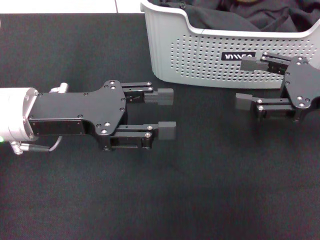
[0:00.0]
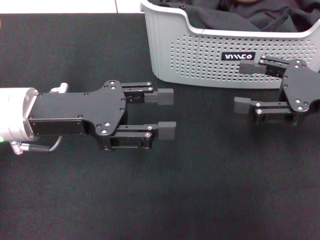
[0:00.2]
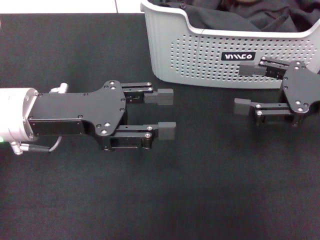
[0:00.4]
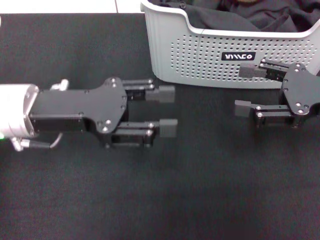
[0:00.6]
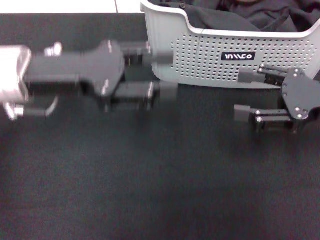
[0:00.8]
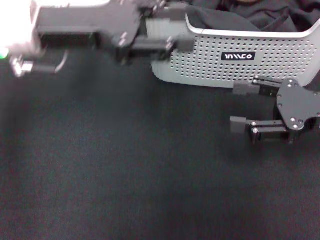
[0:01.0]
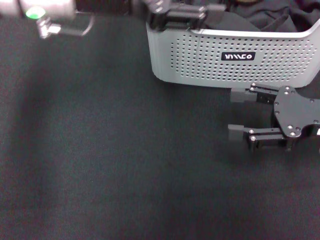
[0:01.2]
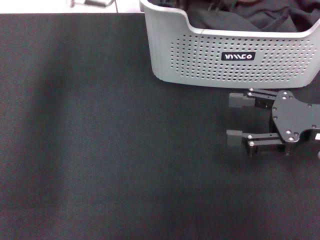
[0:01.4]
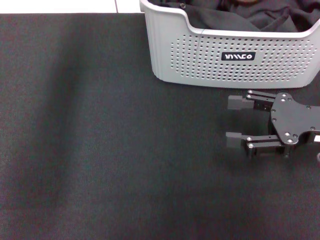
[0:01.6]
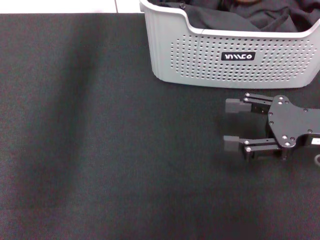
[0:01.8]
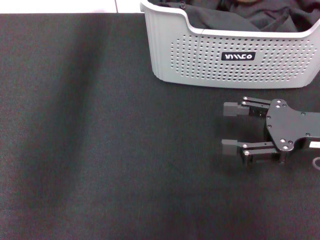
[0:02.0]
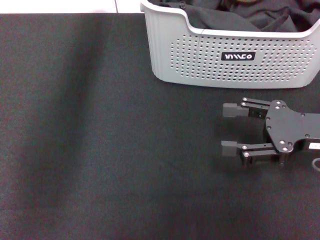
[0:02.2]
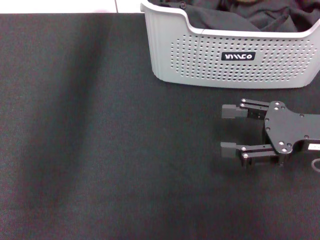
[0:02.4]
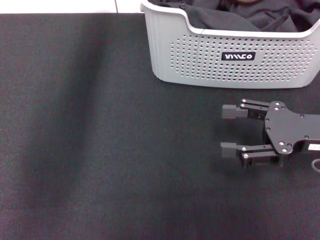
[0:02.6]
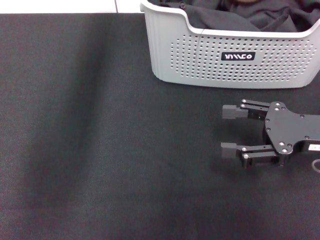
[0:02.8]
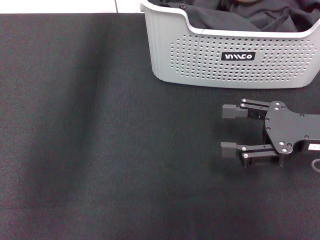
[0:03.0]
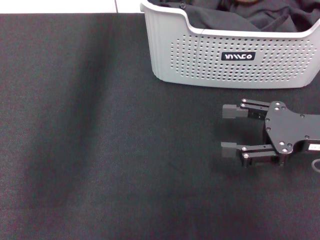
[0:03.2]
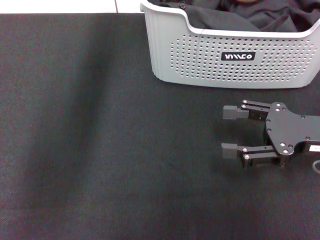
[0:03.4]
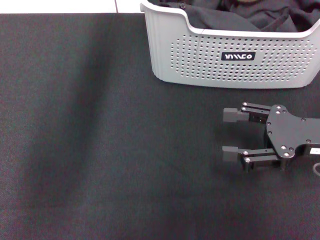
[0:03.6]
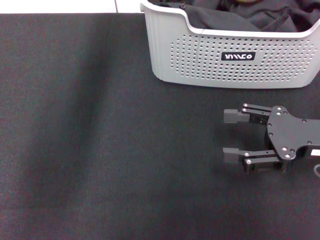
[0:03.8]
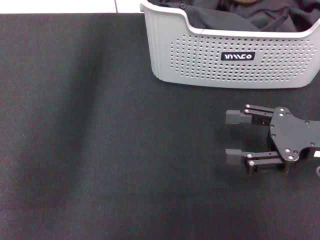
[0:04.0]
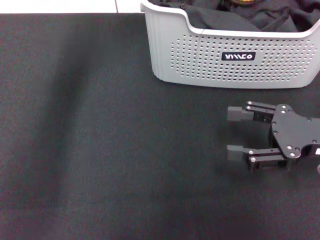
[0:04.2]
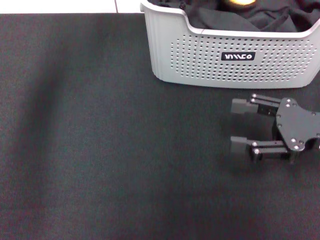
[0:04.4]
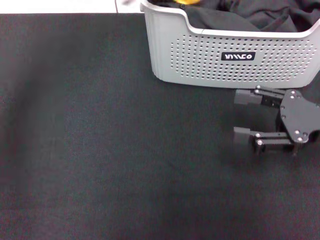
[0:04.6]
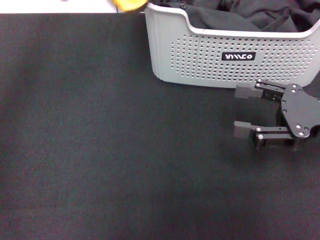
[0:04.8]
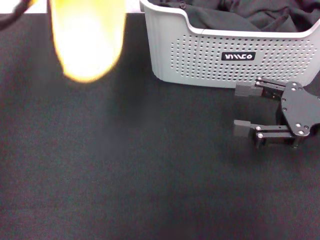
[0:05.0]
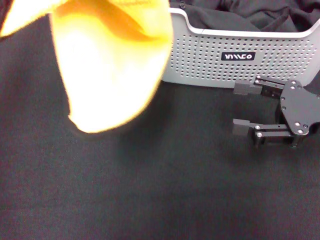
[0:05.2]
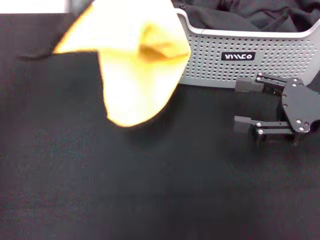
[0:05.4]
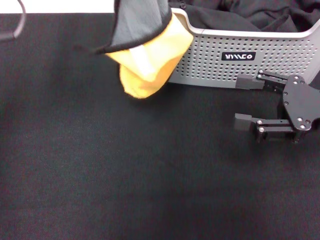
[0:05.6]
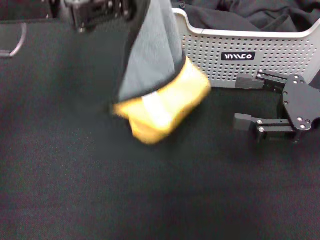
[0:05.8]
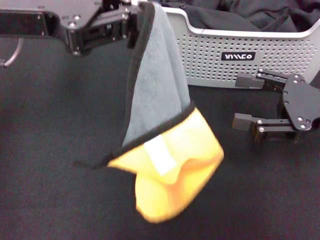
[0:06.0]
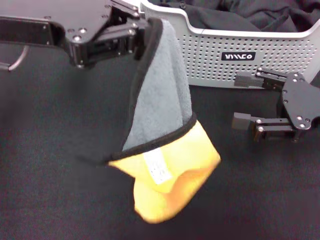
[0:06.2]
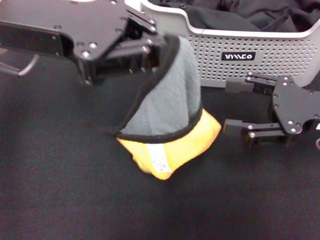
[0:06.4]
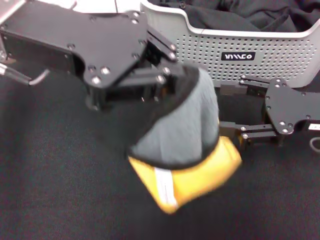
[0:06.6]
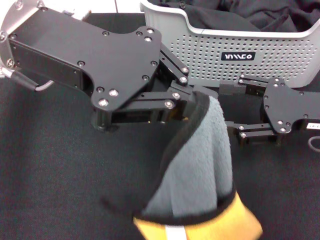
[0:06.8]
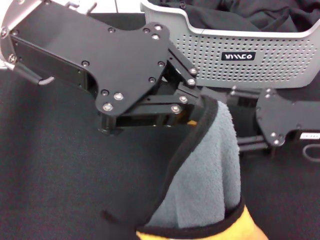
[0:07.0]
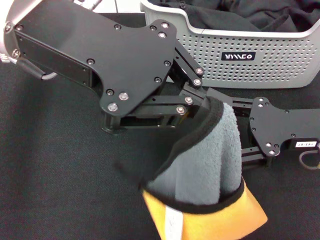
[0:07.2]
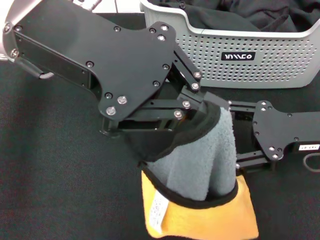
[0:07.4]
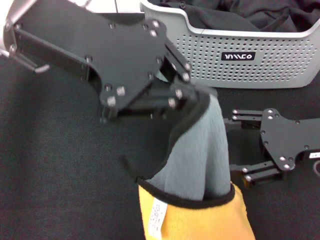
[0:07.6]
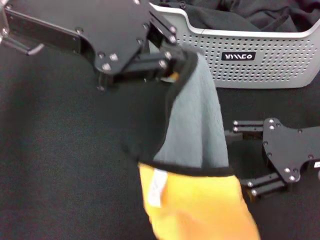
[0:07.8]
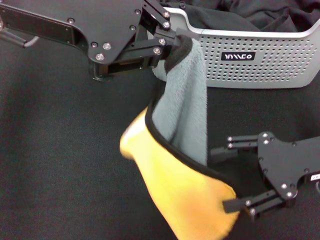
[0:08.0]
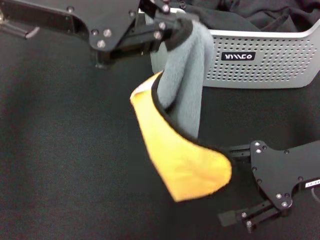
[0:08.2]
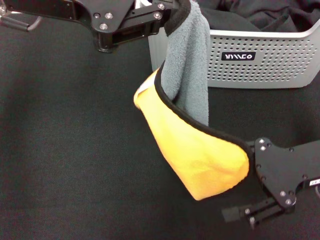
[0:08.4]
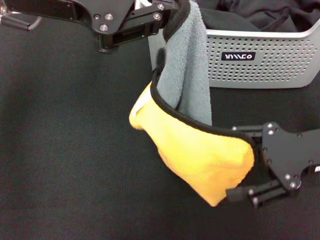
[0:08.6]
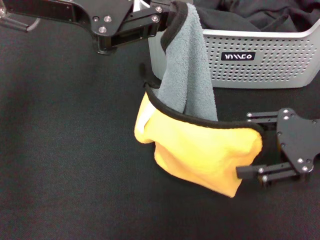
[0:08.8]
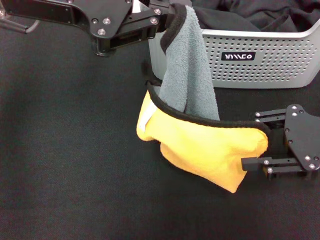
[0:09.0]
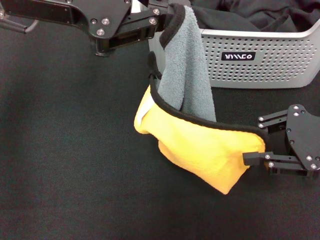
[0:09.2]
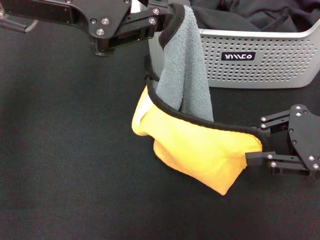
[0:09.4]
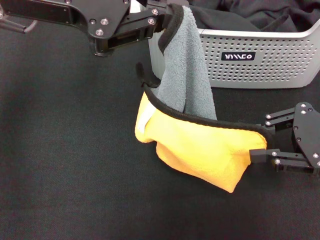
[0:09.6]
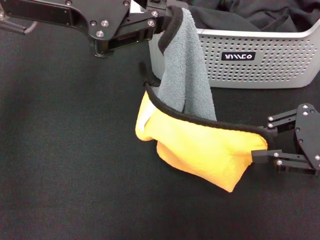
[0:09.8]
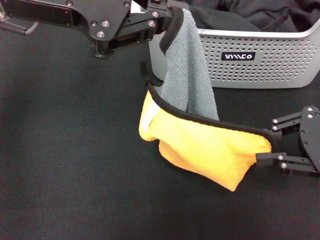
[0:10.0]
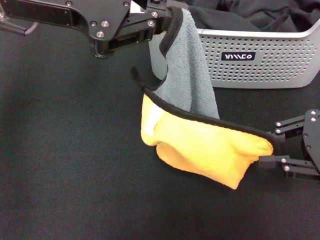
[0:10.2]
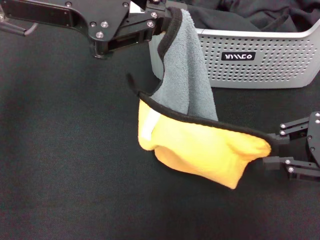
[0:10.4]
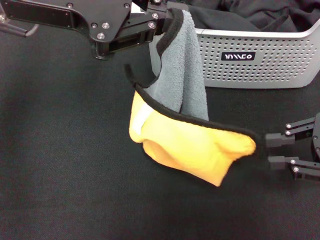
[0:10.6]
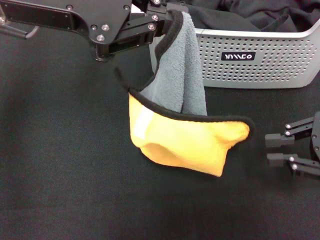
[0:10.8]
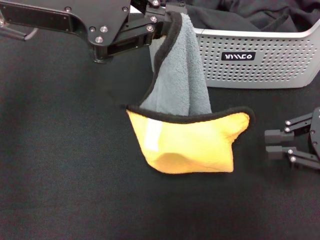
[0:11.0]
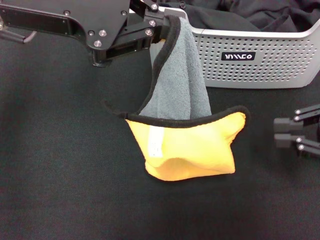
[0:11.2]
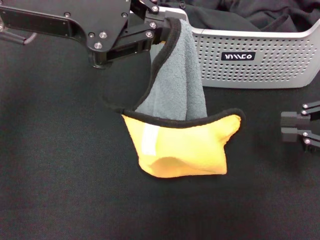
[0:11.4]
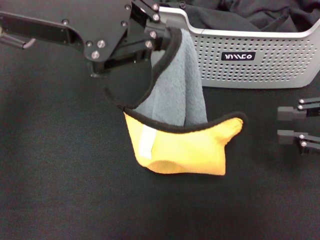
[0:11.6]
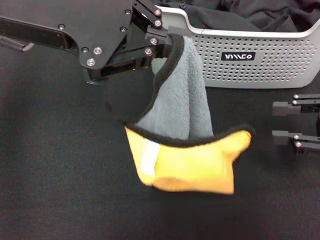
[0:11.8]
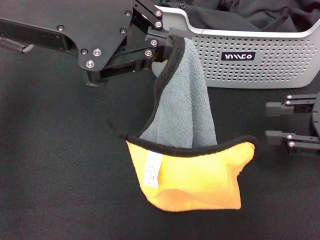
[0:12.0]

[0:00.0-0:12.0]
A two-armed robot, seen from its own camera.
Task of the whole recording: pick up the towel from the storage box and lay it flat on the black tablecloth.
Step, 0:00.0 to 0:03.8: Pick up a towel with the left gripper.
0:00.0 to 0:01.6: The left gripper shifts about 20 cm forward, upward and to the right.
0:01.6 to 0:03.0: The left gripper goes roughly 5 cm forward.
0:03.0 to 0:04.4: The left gripper travels to the left and backward by about 10 cm, and closes up.
0:04.4 to 0:06.0: The left gripper travels backward and to the left by approximately 10 cm.
0:06.0 to 0:07.6: The left gripper shifts some 5 cm to the right.
0:09.0 to 0:10.4: The right gripper closes.

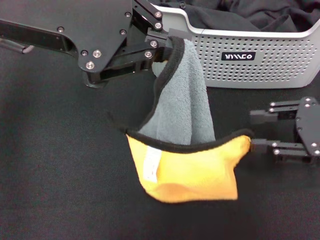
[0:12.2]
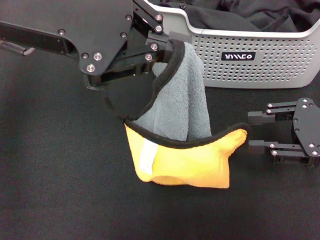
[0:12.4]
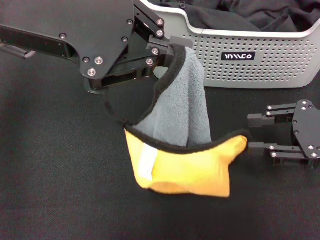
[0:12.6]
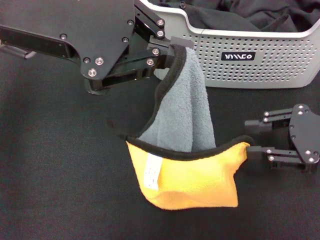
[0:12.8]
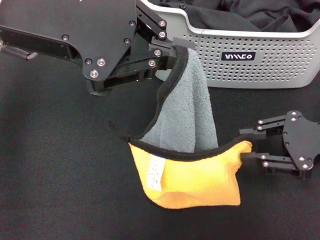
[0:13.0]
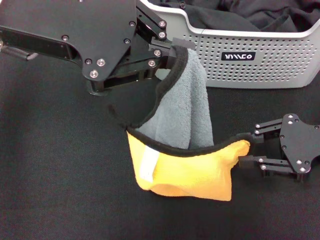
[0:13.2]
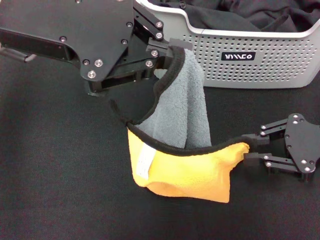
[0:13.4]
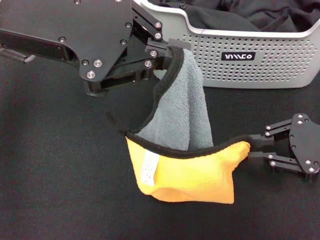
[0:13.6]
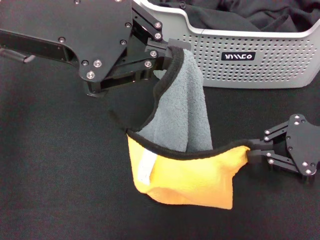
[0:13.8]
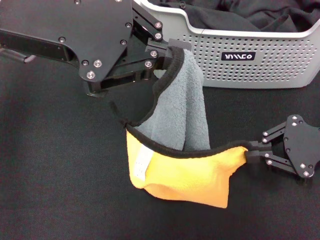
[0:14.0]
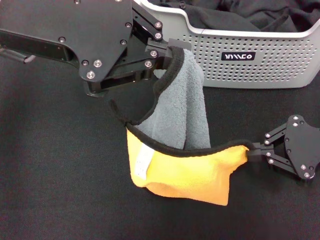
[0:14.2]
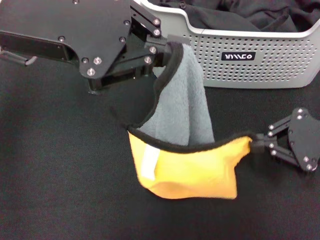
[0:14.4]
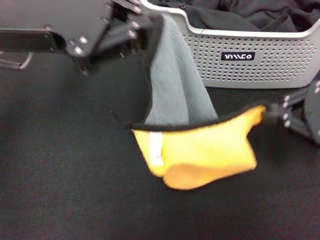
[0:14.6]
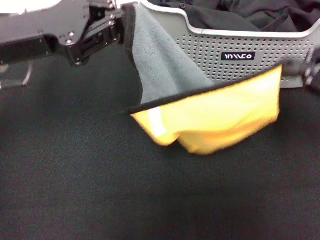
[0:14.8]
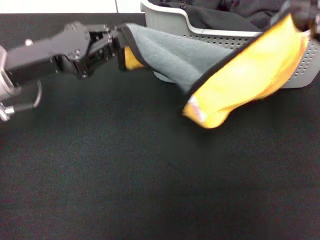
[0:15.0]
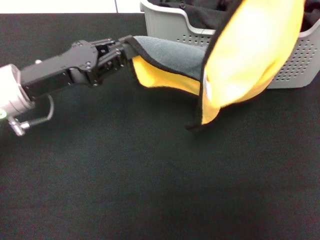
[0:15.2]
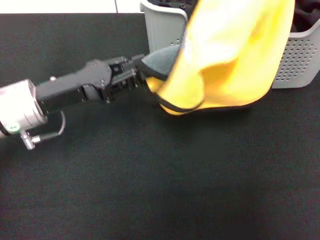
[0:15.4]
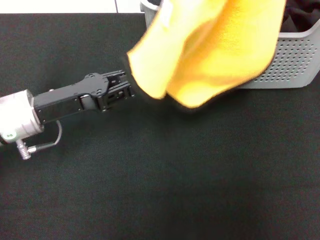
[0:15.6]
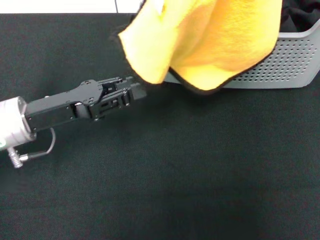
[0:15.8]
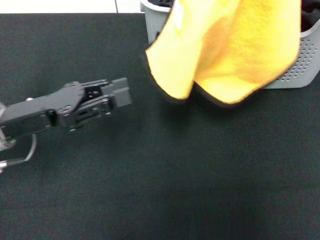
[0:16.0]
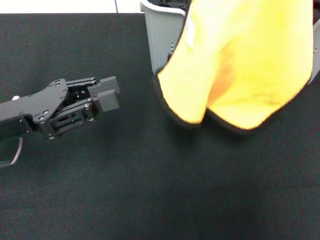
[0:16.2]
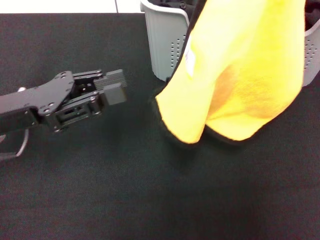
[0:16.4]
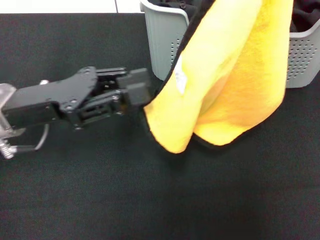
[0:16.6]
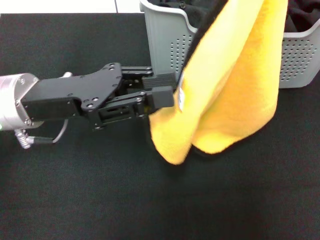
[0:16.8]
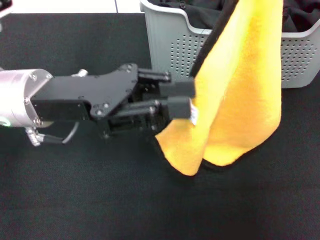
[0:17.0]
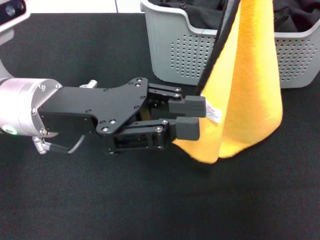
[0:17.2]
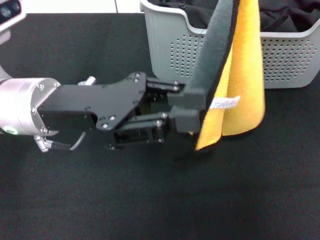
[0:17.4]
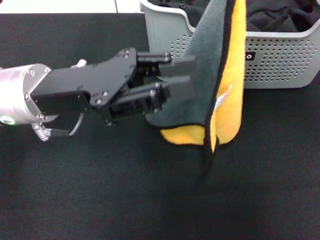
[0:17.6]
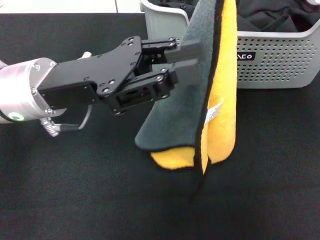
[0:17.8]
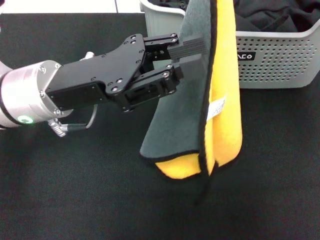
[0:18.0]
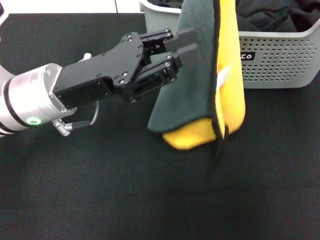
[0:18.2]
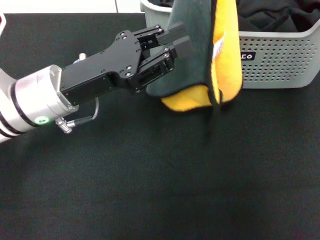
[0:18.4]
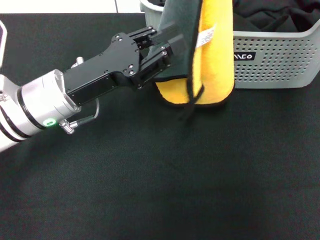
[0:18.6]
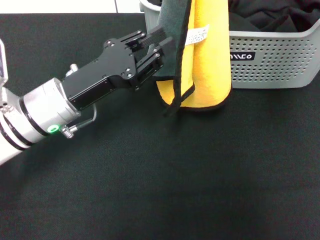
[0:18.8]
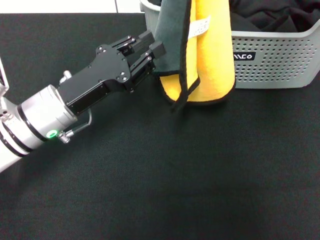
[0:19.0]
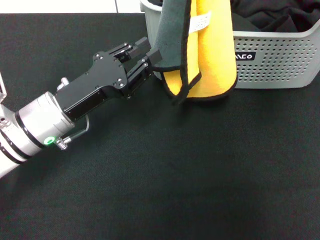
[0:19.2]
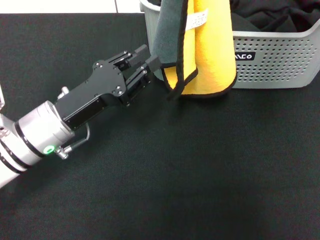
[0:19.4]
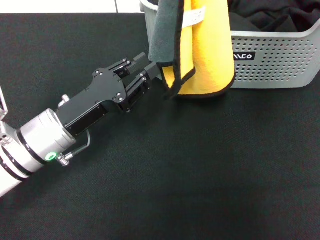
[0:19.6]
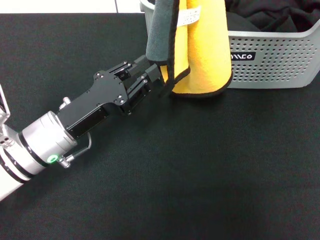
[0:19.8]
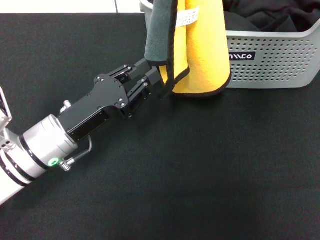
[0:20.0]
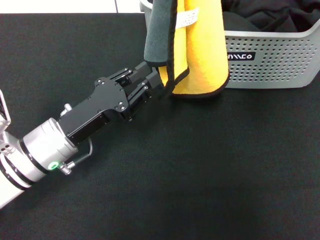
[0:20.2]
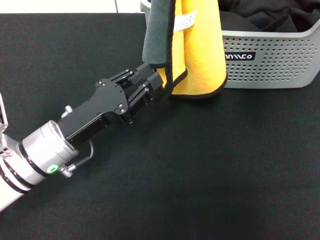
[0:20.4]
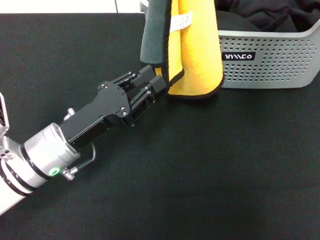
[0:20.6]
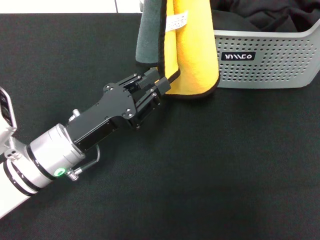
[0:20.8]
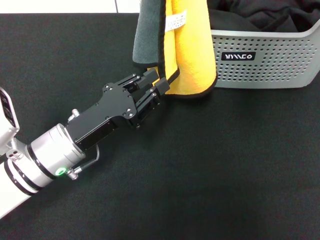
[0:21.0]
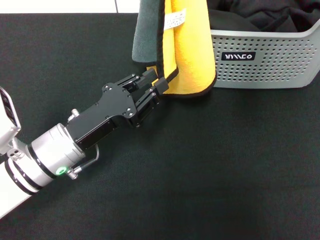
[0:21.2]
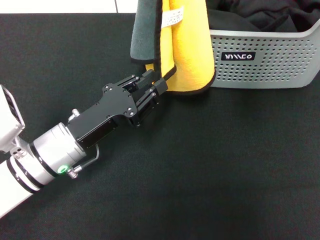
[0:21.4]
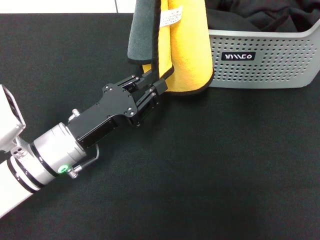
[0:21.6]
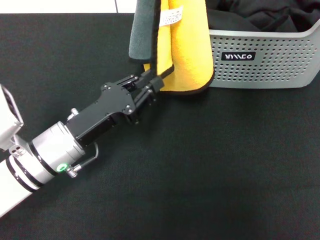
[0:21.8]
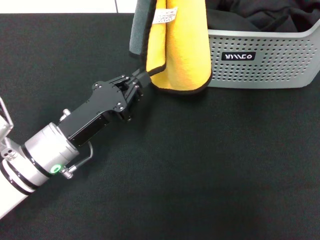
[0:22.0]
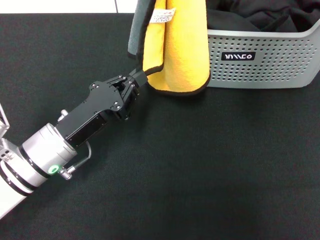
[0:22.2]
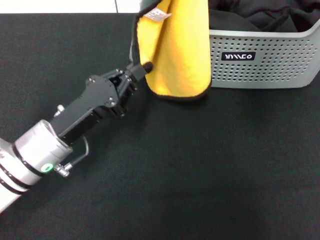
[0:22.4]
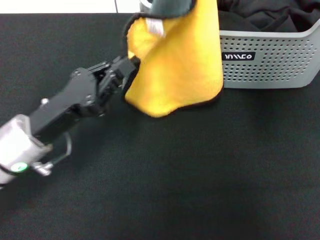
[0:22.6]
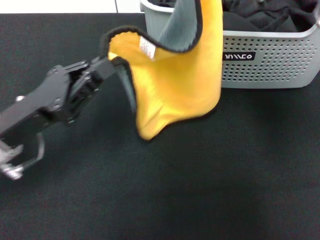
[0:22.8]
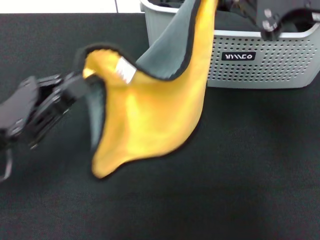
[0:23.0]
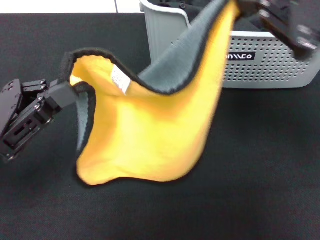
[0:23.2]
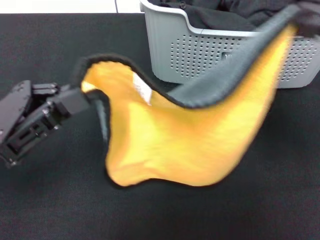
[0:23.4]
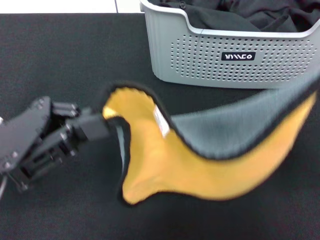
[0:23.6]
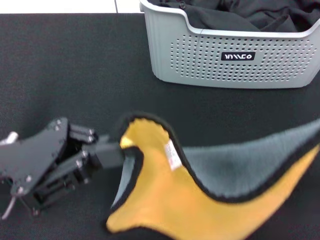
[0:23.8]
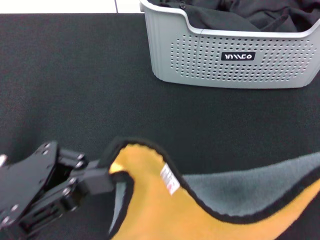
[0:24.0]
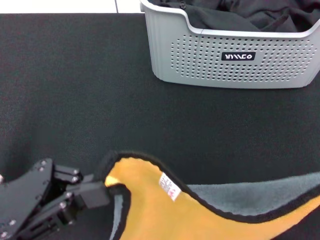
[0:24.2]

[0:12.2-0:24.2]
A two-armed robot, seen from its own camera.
Task of the whole recording: pick up the towel from the storage box and lay it flat on the black tablecloth.
Step, 0:12.2 to 0:14.2: Spread the towel flat with the left gripper.
0:12.2 to 0:13.8: The right gripper closes.
0:13.8 to 0:15.2: The right gripper travels upward by about 20 cm; the left gripper travels downward by approximately 15 cm.
0:15.2 to 0:16.6: The right gripper is displaced upward by some 5 cm.
0:16.6 to 0:18.2: The right gripper moves approximately 5 cm, while the left gripper travels to the right by roughly 5 cm.
0:18.2 to 0:19.8: The left gripper heads downward, covering about 10 cm, while the right gripper moves about 5 cm.
0:19.8 to 0:21.2: The grippers move only a little.
0:21.2 to 0:22.6: The left gripper closes up.
0:22.6 to 0:24.2: The right gripper heads backward, to the right and downward, covering about 25 cm. The left gripper shifts about 10 cm backward and upward.
